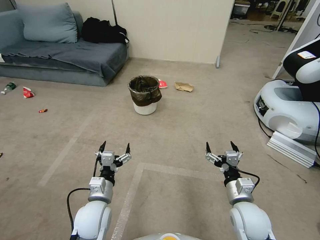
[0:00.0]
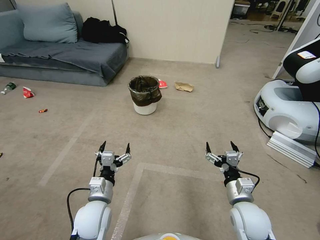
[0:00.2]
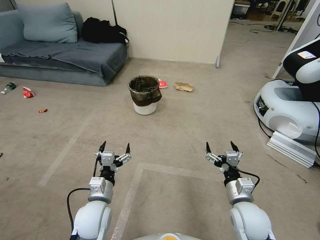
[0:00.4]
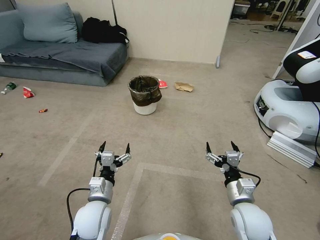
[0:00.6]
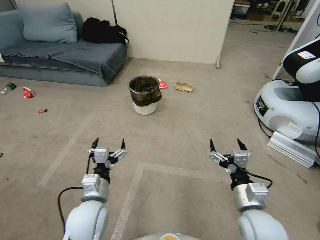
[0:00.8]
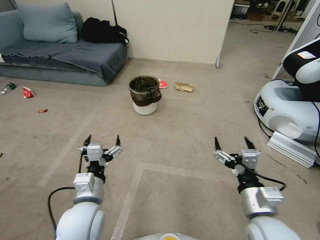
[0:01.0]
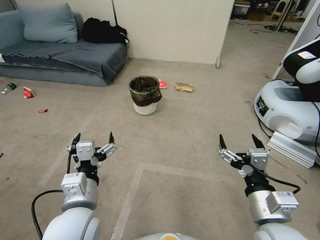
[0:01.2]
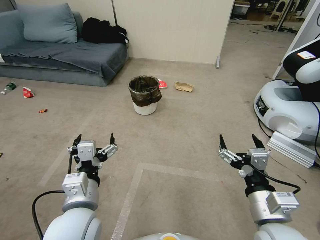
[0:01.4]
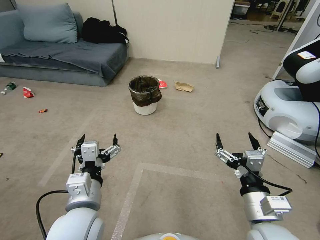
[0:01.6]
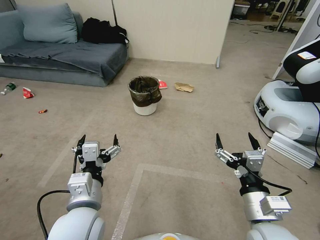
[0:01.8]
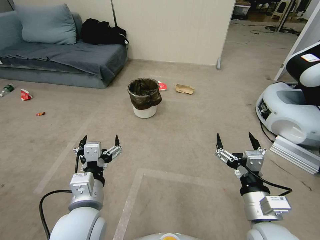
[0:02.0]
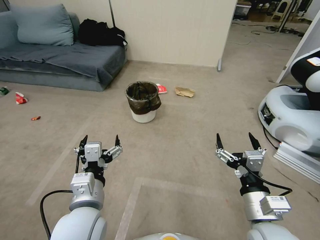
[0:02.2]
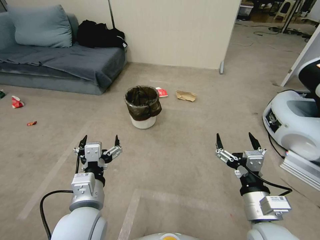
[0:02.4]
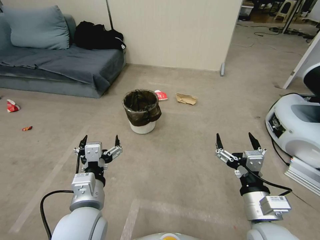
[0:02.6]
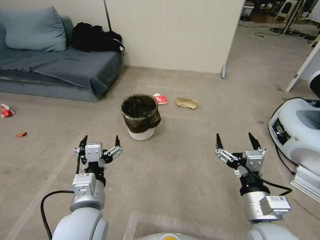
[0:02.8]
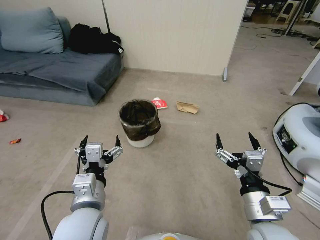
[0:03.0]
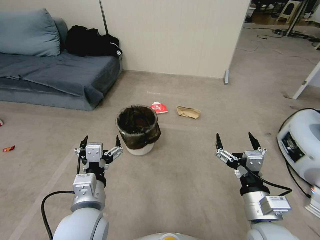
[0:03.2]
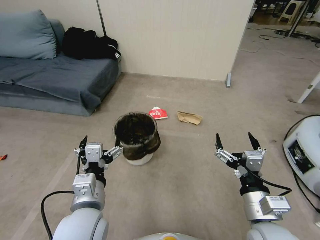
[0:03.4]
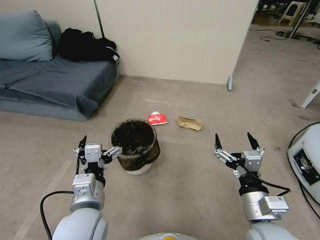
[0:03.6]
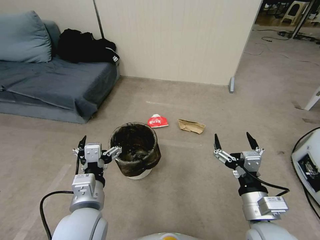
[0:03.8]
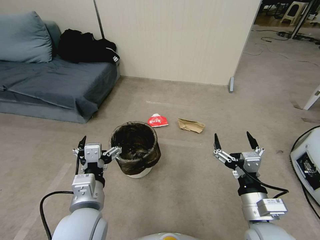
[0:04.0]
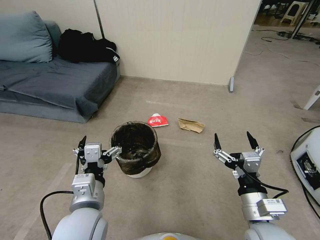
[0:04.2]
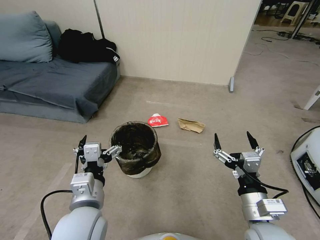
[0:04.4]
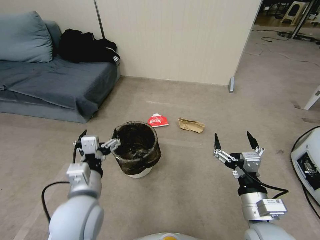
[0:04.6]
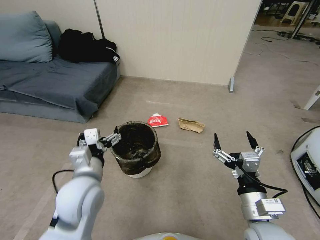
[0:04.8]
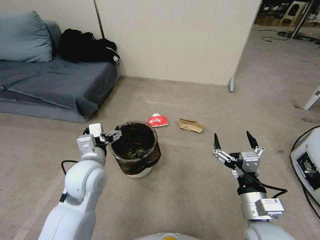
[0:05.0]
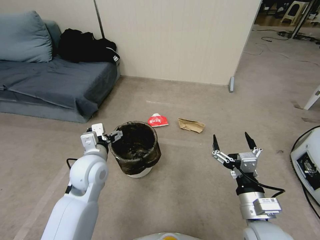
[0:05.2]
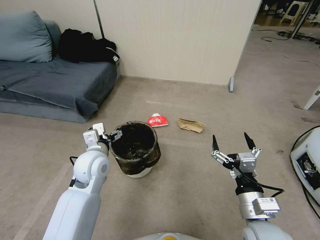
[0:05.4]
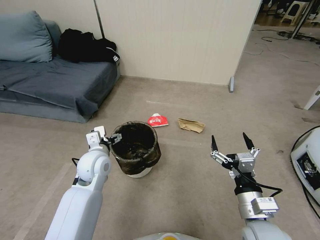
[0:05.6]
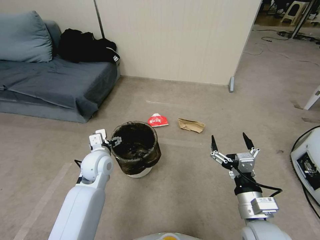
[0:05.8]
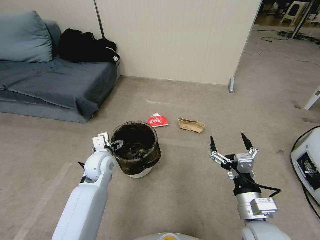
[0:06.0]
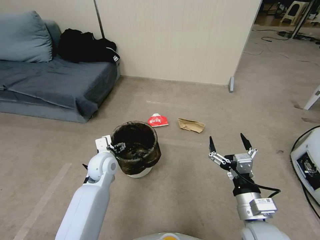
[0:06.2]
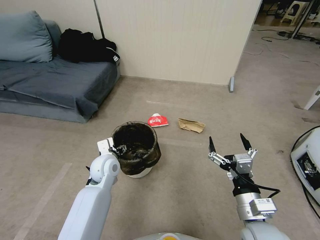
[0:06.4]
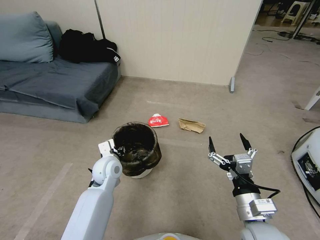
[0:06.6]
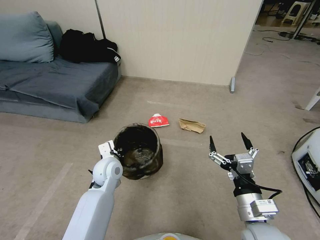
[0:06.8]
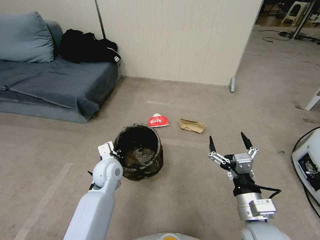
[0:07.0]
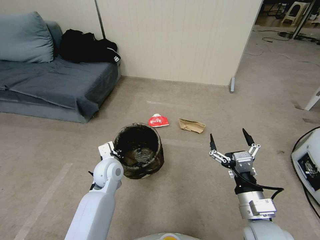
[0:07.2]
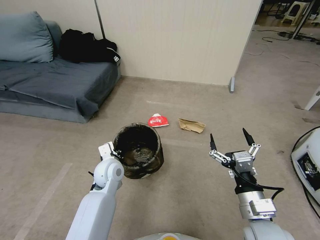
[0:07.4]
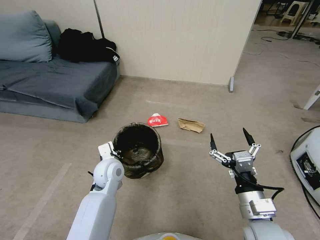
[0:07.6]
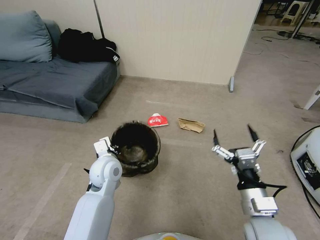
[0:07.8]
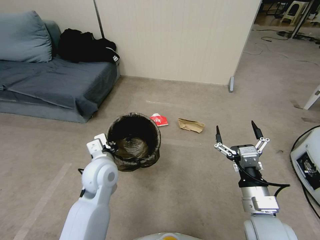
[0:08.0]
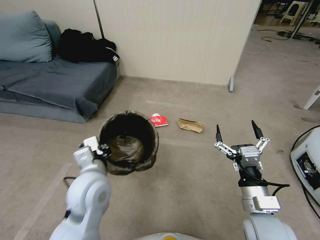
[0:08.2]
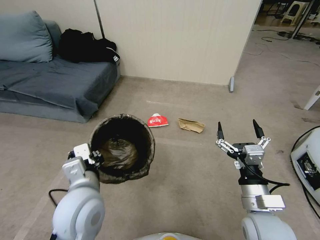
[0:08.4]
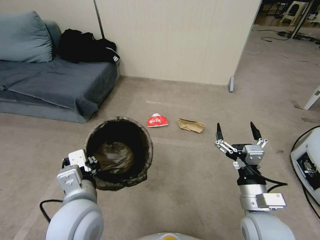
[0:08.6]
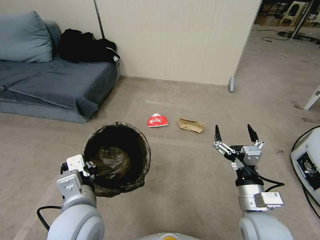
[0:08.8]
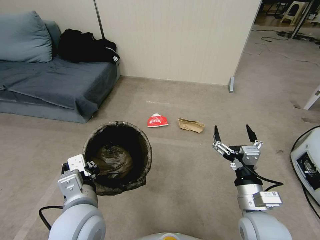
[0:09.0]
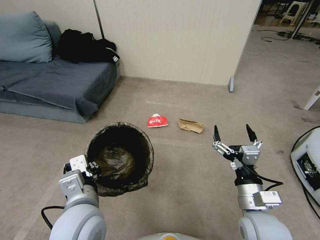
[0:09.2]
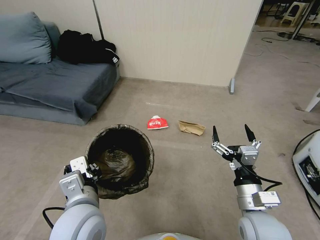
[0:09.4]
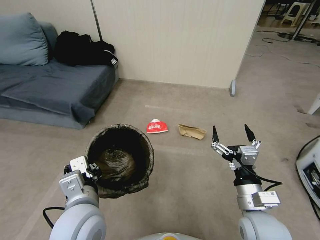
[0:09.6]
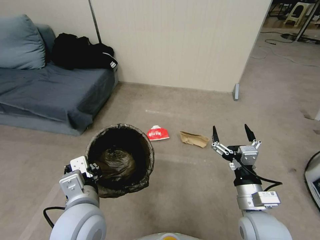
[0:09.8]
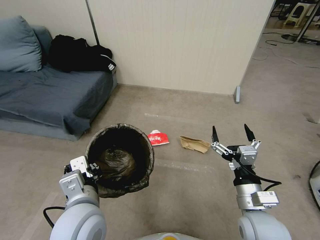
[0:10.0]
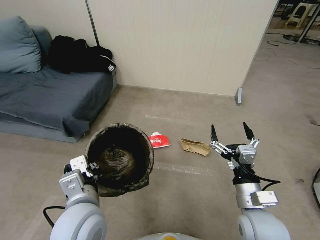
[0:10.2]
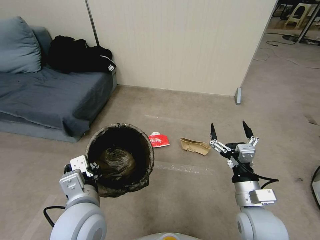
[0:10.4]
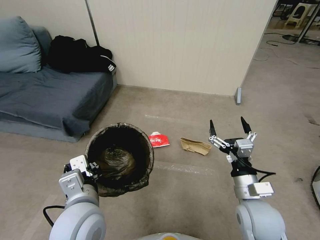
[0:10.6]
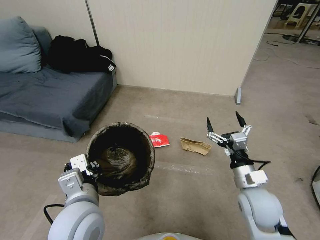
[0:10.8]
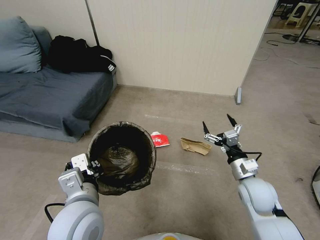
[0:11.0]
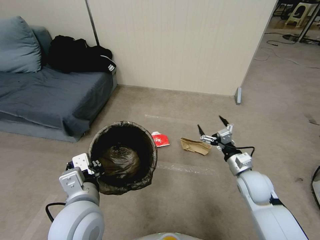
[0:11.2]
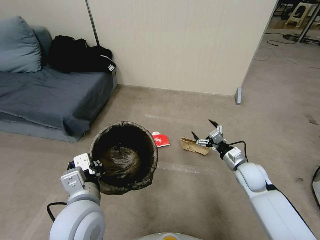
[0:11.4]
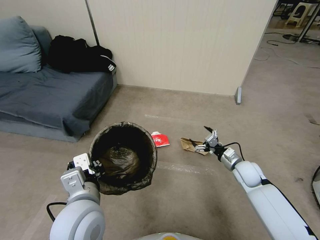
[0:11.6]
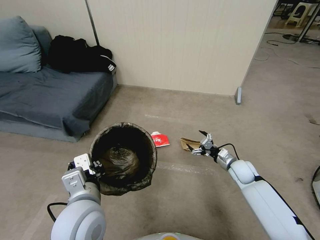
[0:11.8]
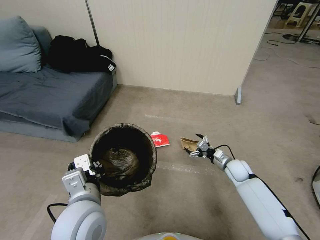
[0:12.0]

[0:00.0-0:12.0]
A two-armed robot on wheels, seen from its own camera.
Task of the whole recording: Pick up the trash bin, then pick up the garbage from the floor and place it into the trash bin.
0:04.4 to 0:06.0: The left gripper shifts some 20 cm forward and downward.
0:06.0 to 0:07.6: The left gripper closes up.
0:07.6 to 0:09.0: The left gripper goes roughly 20 cm backward and upward.
0:10.4 to 0:12.0: The right gripper travels forward and downward by approximately 30 cm.

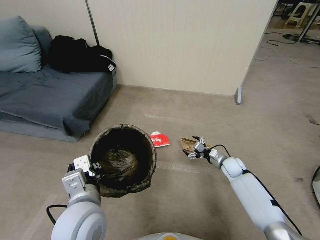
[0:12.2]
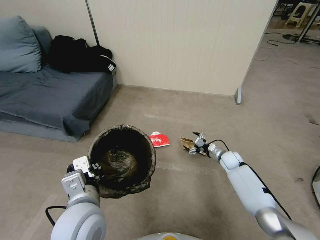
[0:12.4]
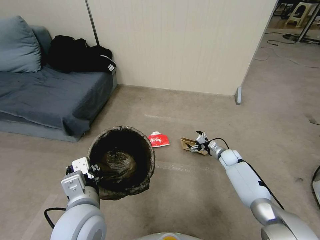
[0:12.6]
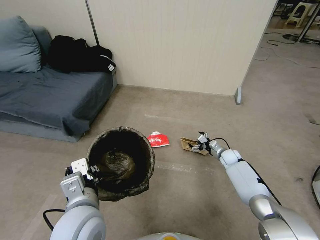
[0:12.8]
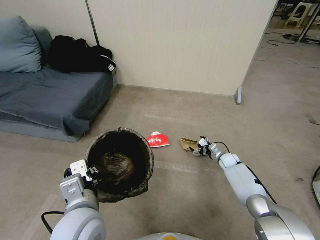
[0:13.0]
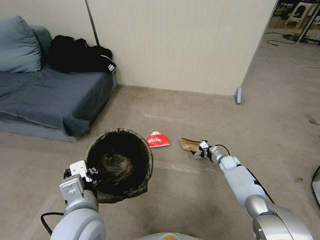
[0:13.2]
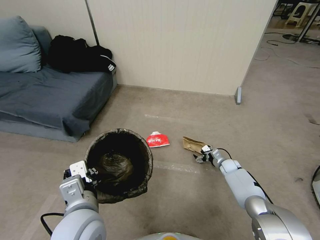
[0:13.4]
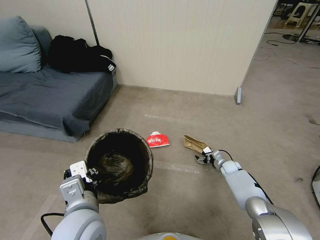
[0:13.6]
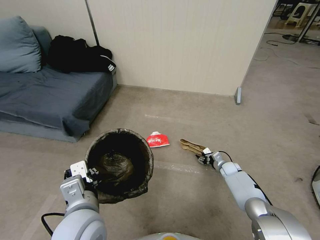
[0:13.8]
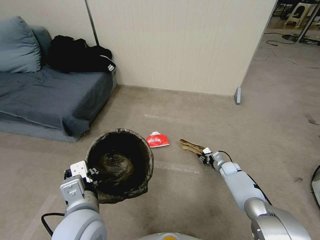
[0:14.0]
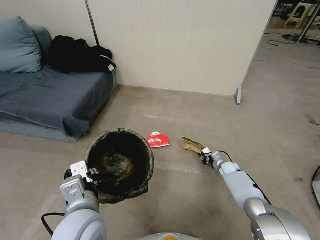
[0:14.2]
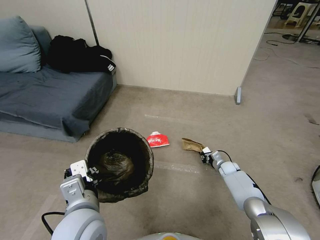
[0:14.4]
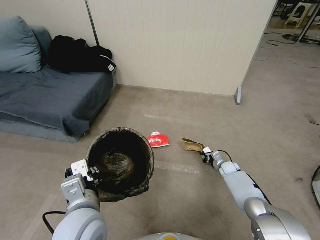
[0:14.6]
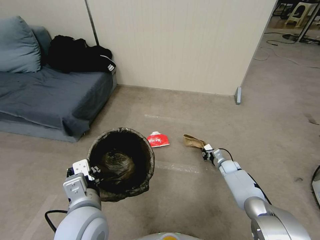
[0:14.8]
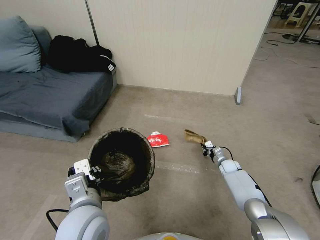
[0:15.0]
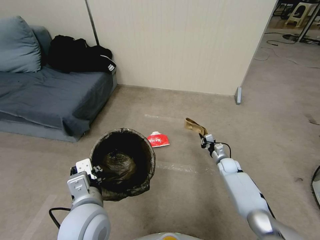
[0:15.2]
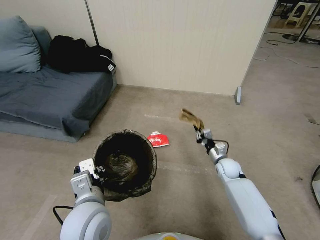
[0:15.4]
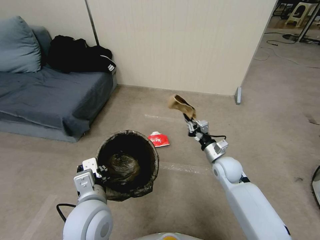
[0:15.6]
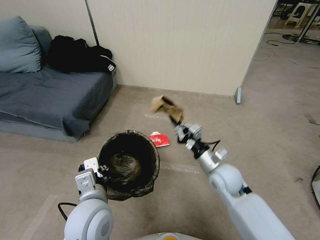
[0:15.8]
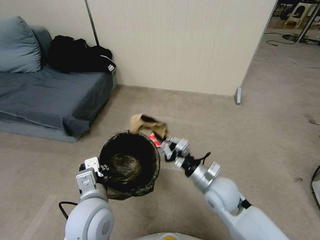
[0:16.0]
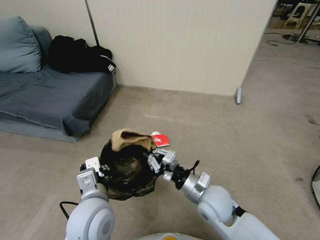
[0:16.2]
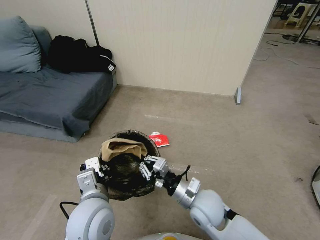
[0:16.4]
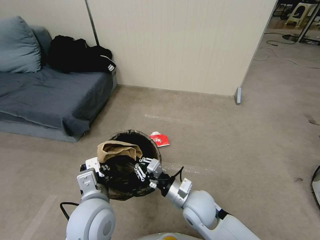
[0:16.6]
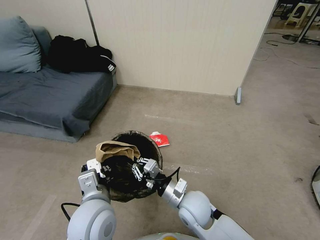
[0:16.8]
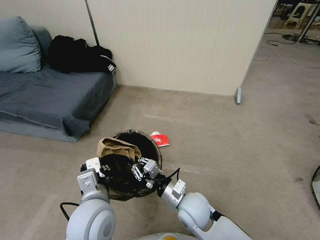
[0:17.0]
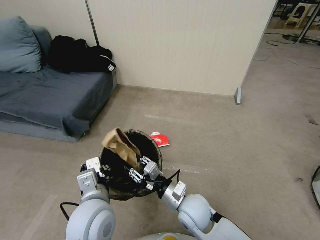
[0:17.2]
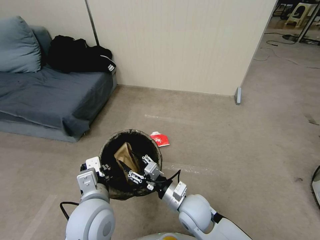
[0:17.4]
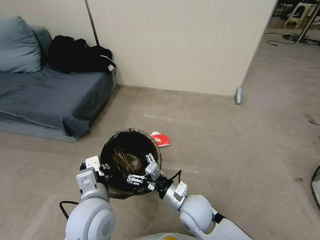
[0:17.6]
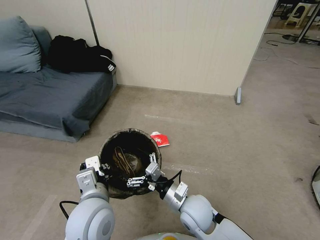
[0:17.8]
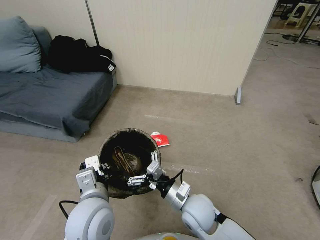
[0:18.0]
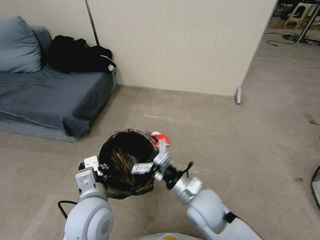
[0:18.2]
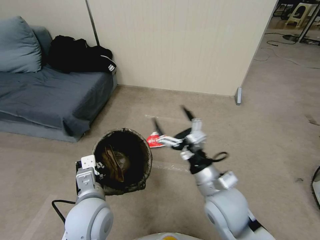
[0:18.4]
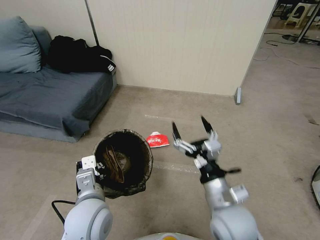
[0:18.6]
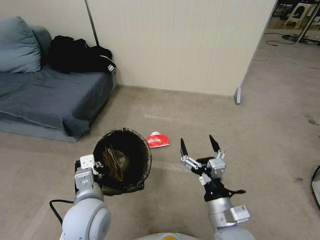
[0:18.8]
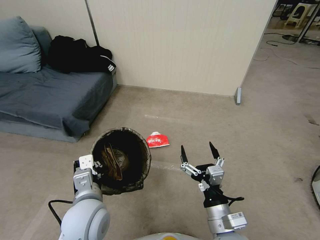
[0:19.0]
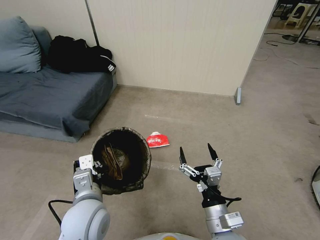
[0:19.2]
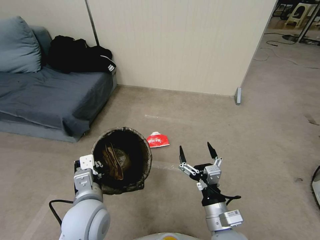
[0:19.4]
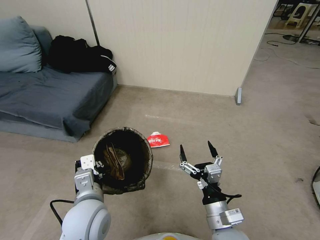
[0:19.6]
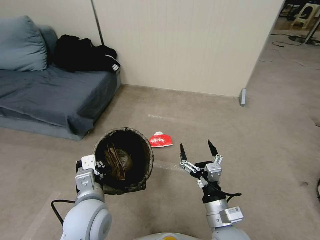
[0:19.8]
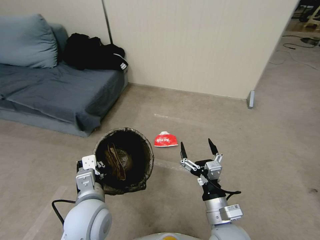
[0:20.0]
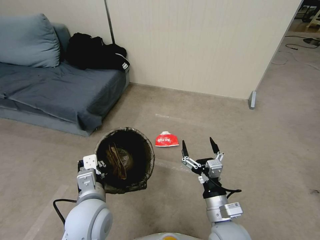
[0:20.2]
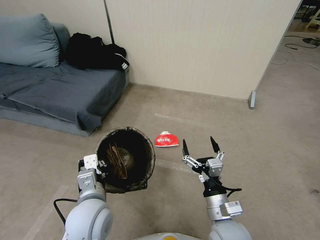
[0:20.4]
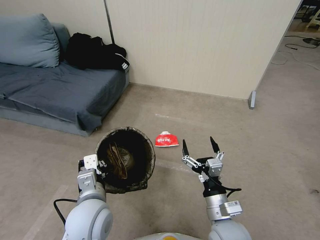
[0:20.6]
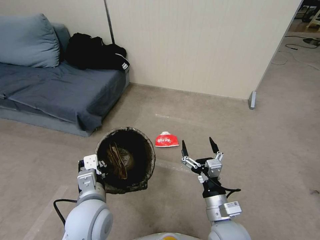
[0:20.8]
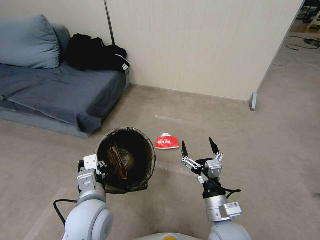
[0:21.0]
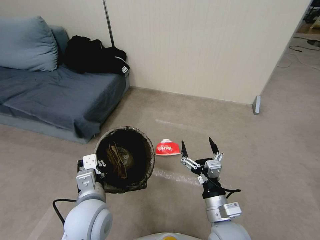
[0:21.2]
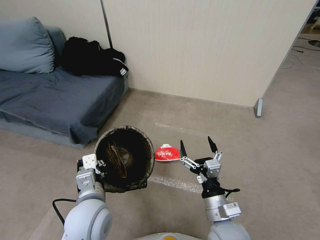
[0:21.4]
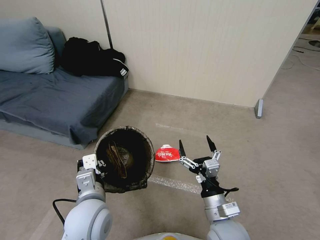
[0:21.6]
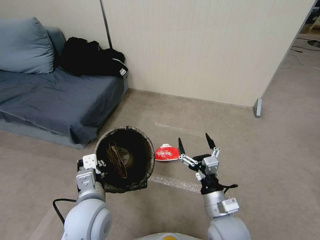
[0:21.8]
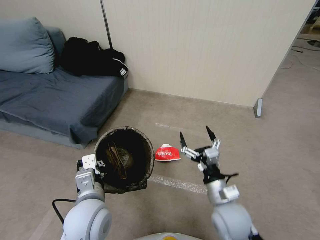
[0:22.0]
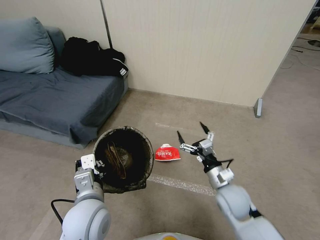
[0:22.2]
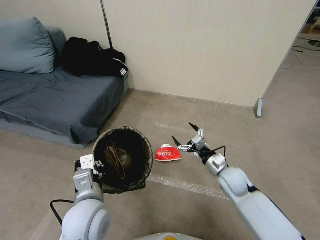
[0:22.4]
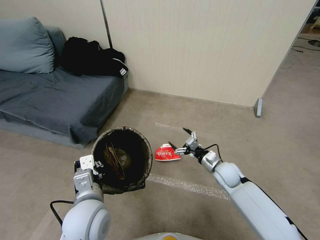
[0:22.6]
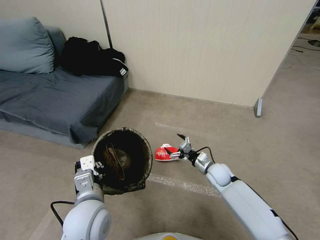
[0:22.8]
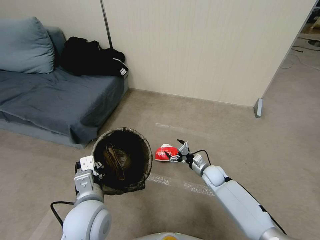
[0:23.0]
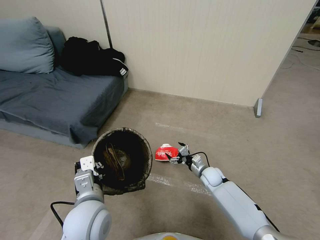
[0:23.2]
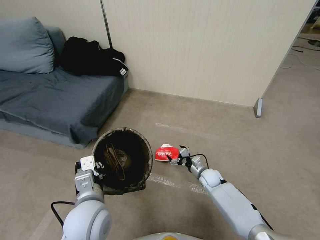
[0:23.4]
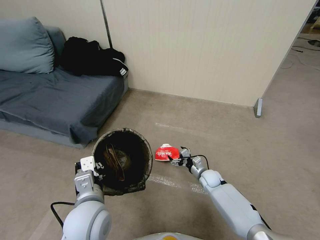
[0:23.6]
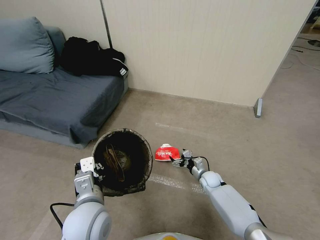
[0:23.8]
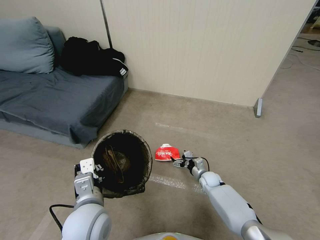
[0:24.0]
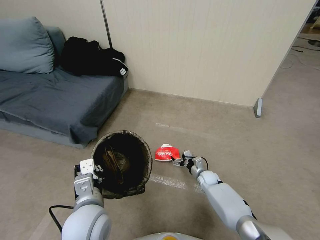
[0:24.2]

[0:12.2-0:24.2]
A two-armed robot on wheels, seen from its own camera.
Task of the whole recording: Pick up the trash bin, then pick up the garbage from the floor and place it into the trash bin.
0:12.2 to 0:13.8: The right gripper heads downward, covering approximately 10 cm, and closes its fingers.
0:13.8 to 0:15.2: The right gripper closes its fingers.
0:15.2 to 0:16.6: The right gripper travels to the left, backward and upward by some 35 cm.
0:16.6 to 0:18.2: The right gripper shifts by roughly 5 cm, and opens.
0:18.2 to 0:19.8: The right gripper travels backward by about 10 cm.
0:19.8 to 0:21.2: There are only small adjustments of the grippers.
0:21.2 to 0:22.6: The right gripper goes some 25 cm forward, downward and to the right.
0:22.6 to 0:24.2: The right gripper moves downward, roughly 15 cm.
